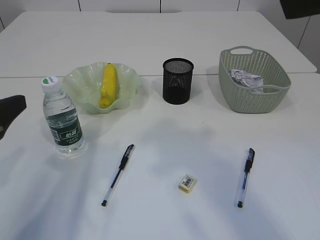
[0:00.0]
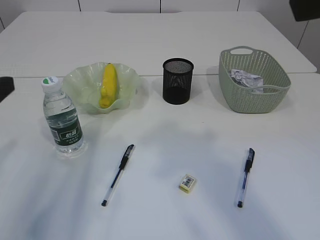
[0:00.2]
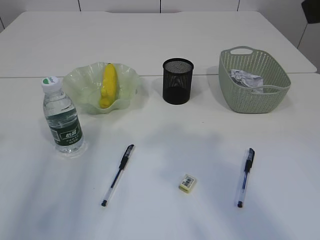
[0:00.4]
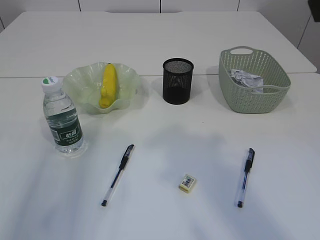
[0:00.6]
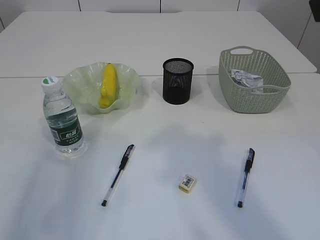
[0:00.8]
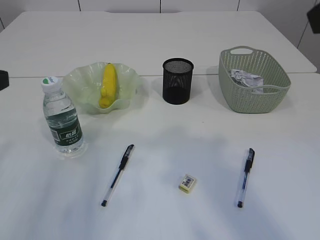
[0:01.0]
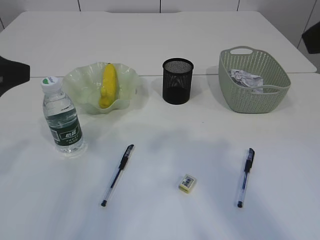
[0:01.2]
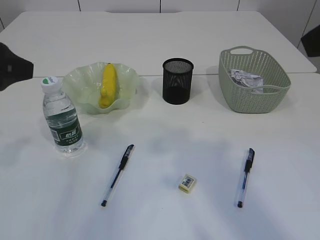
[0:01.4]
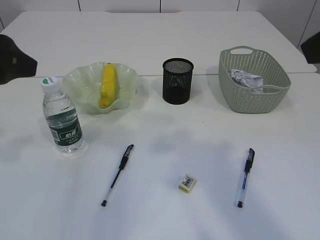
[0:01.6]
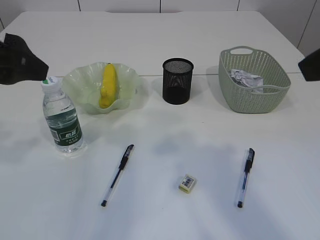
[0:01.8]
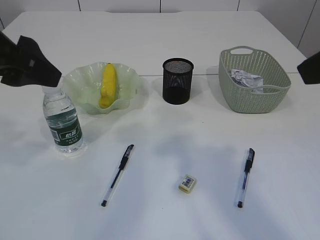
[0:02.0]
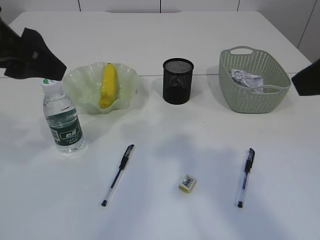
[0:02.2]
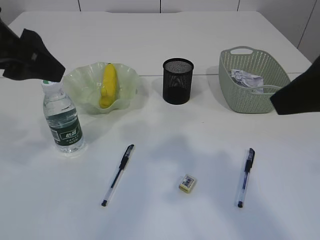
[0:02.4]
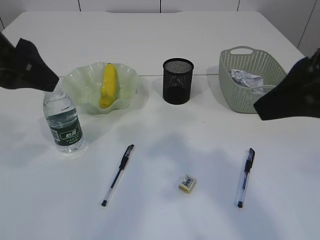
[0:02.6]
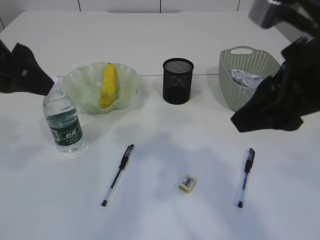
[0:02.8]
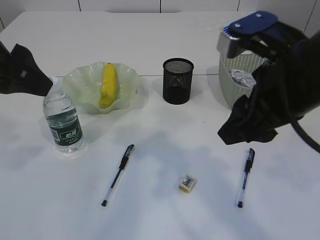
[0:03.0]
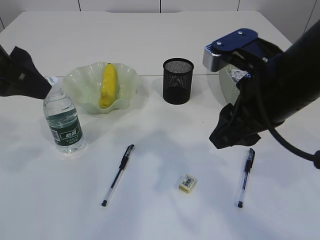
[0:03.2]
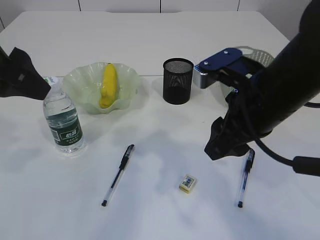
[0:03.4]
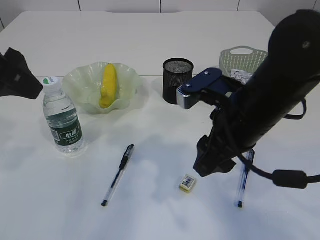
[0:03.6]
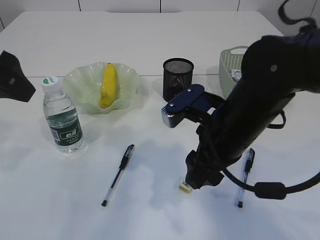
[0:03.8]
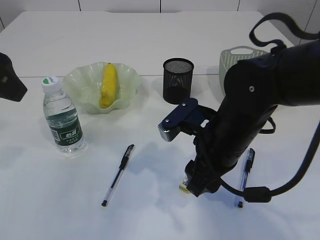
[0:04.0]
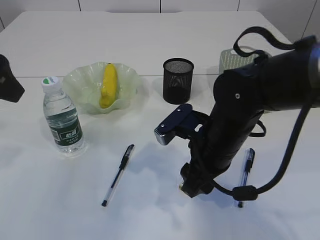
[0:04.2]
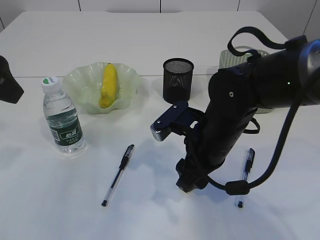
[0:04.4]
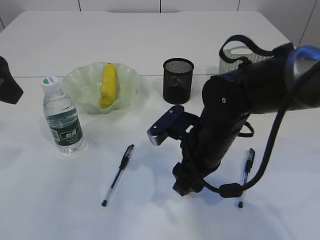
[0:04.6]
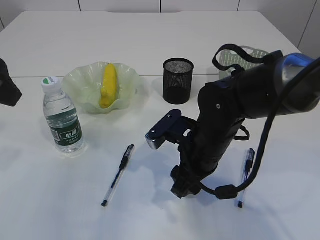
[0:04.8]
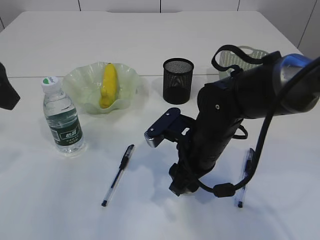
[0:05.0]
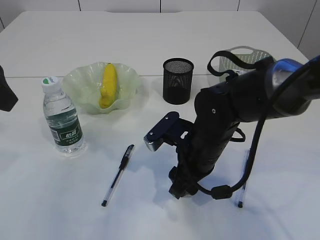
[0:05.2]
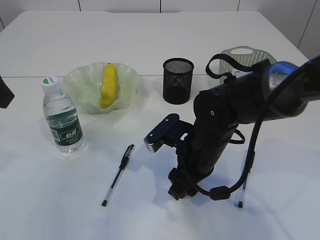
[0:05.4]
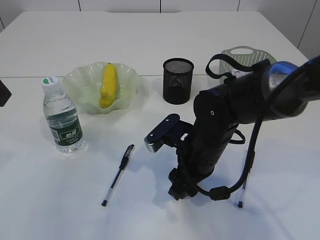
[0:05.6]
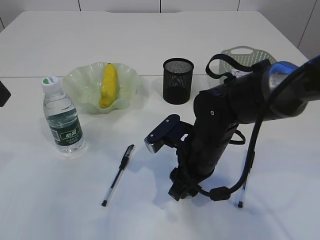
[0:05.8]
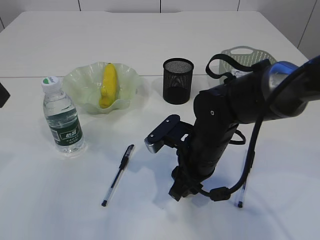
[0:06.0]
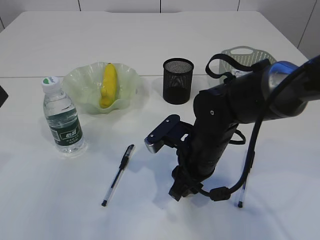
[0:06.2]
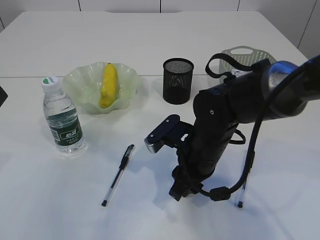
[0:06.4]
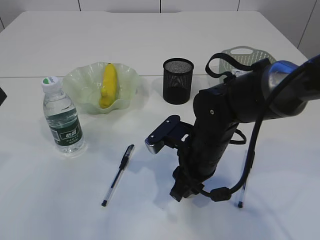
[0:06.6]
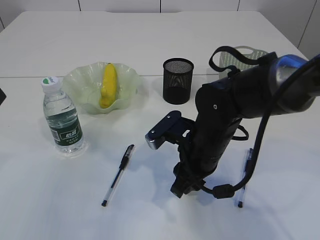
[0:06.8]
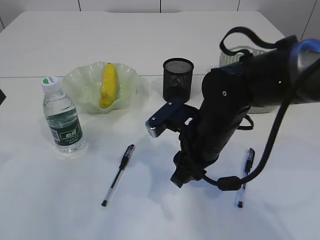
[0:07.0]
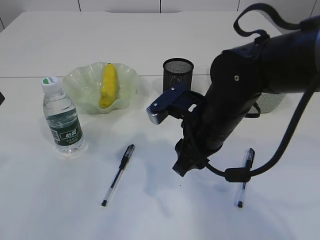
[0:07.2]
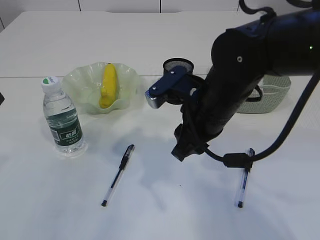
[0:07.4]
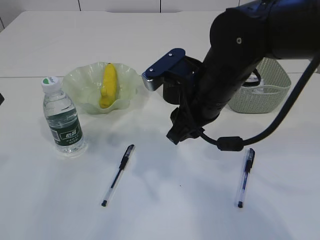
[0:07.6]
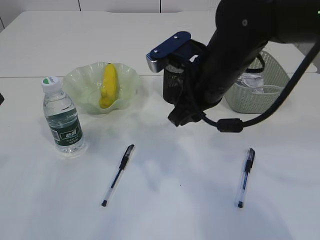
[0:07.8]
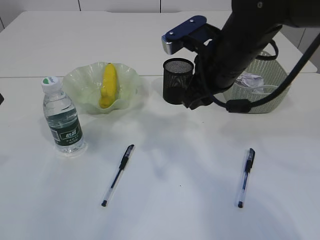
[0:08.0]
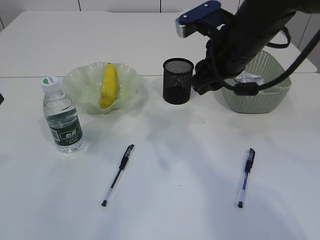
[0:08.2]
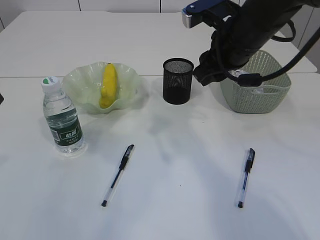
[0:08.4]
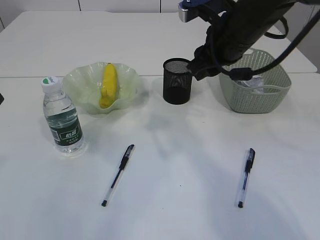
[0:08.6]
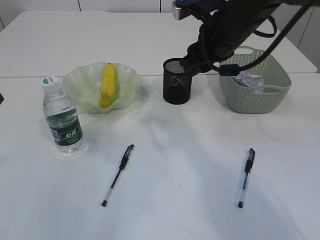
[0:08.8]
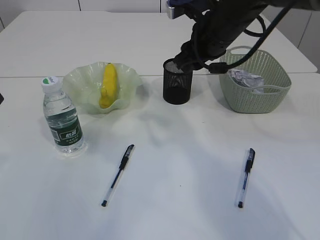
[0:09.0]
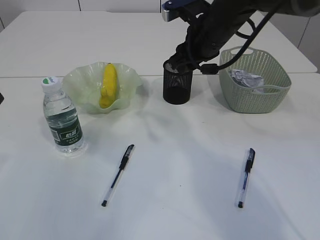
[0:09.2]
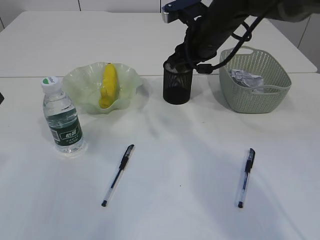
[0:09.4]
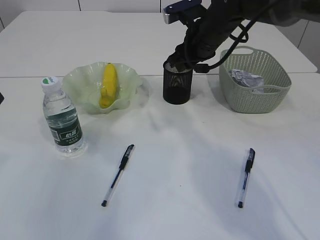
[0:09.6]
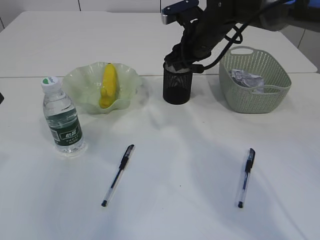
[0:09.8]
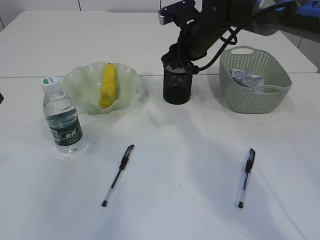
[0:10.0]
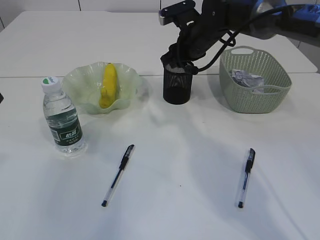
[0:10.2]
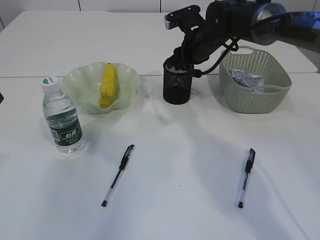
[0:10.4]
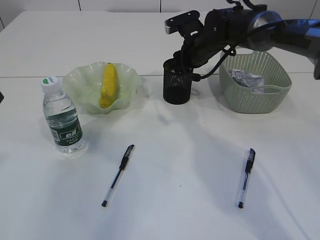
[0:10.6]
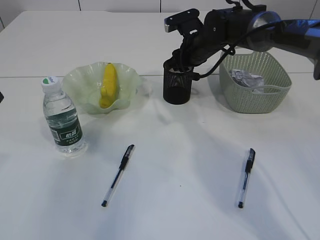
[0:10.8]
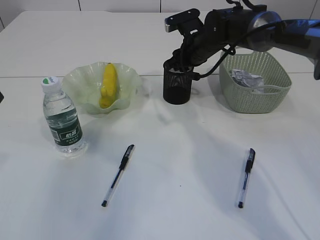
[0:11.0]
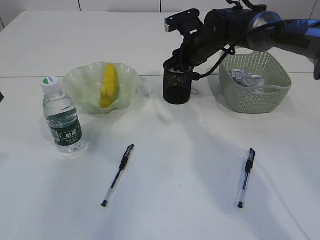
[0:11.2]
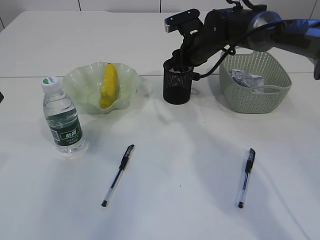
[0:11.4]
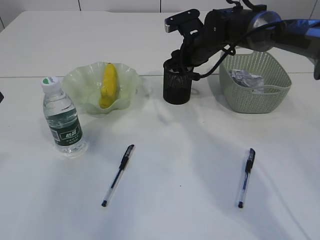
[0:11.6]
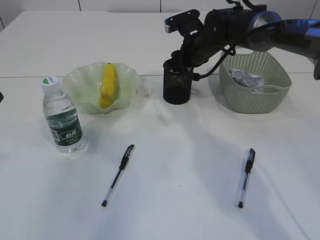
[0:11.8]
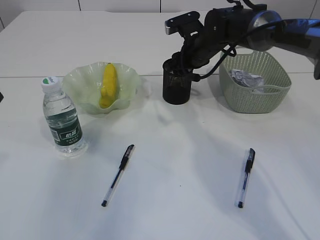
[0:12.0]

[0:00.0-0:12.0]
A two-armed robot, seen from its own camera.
Step, 0:00.0 to 0:07.0: Pick up the eraser.
0:00.0 to 0:01.6: The left gripper is displaced upward by about 10 cm.
0:01.6 to 0:03.0: The right gripper travels downward, to the left and forward by some 15 cm.
0:03.0 to 0:04.4: The right gripper goes roughly 15 cm downward, to the left and forward.
0:04.4 to 0:06.0: The grippers make only small movements.
0:06.0 to 0:07.6: The right gripper is displaced upward by about 10 cm.
0:07.6 to 0:09.0: The right gripper is displaced forward by about 10 cm.
0:09.0 to 0:10.4: The right gripper shifts about 10 cm forward and downward.
0:10.4 to 0:12.0: The grippers move only a little.

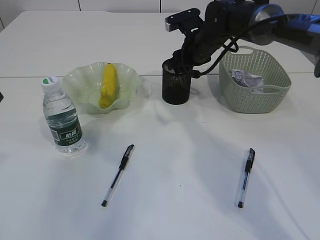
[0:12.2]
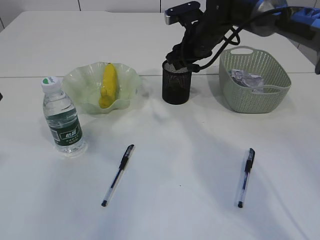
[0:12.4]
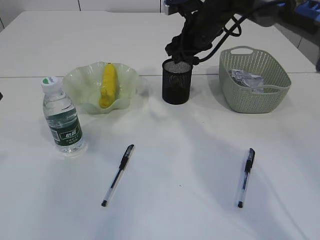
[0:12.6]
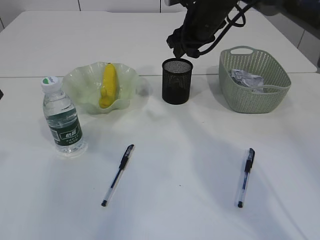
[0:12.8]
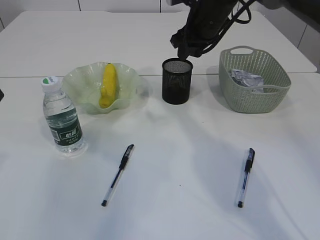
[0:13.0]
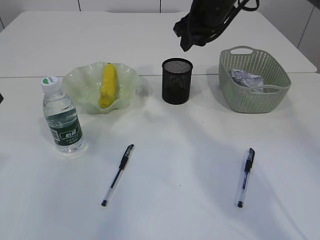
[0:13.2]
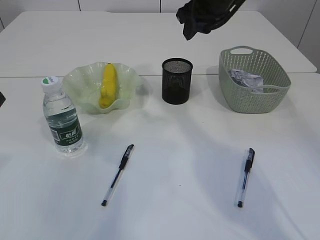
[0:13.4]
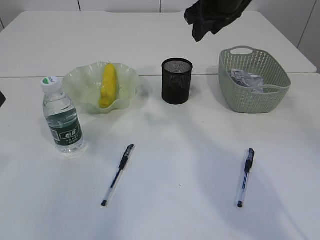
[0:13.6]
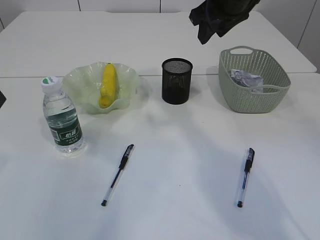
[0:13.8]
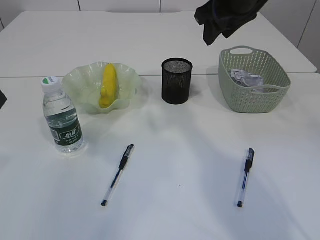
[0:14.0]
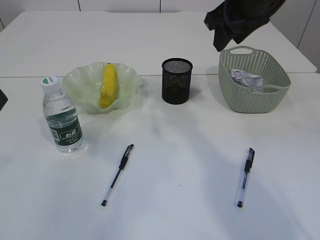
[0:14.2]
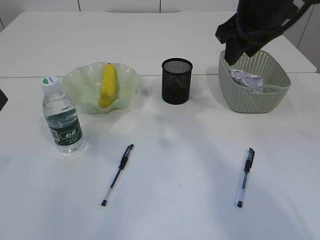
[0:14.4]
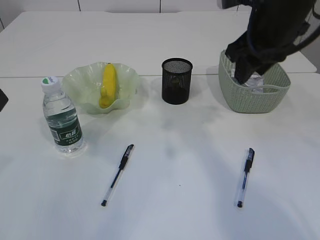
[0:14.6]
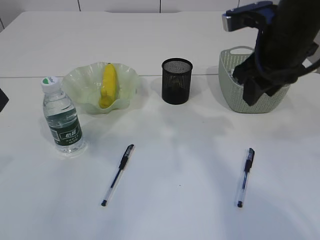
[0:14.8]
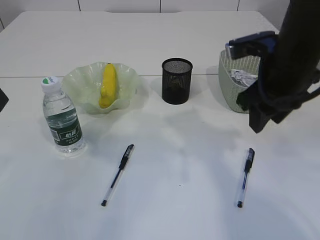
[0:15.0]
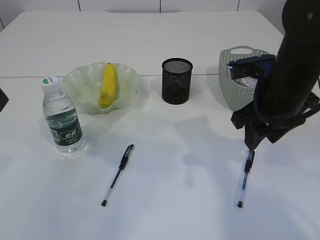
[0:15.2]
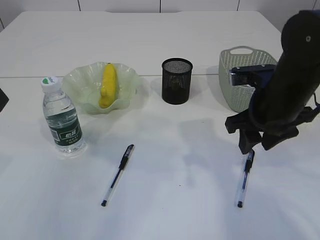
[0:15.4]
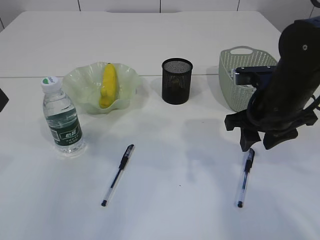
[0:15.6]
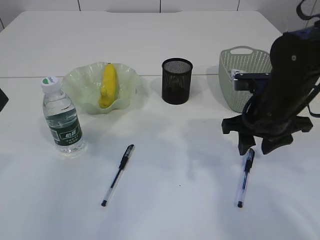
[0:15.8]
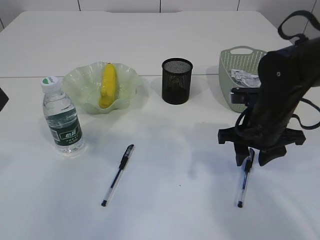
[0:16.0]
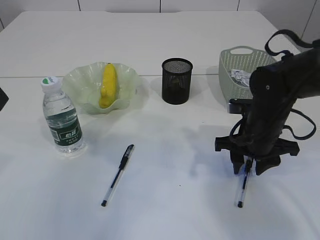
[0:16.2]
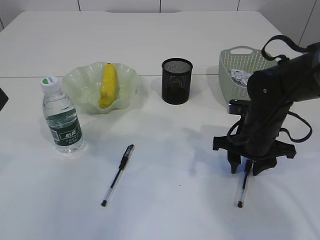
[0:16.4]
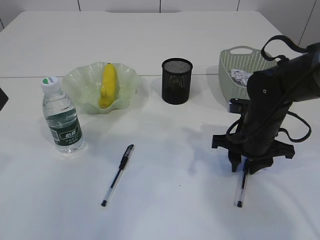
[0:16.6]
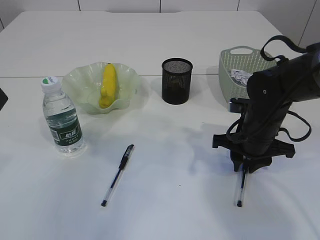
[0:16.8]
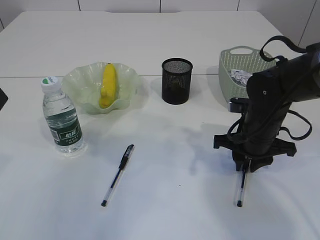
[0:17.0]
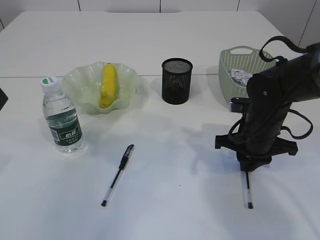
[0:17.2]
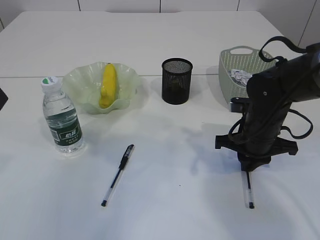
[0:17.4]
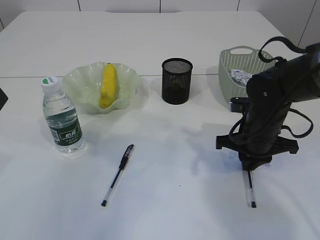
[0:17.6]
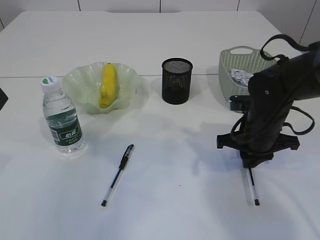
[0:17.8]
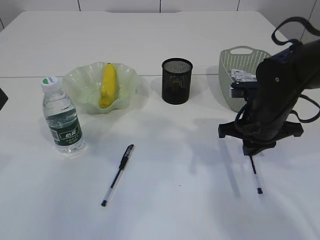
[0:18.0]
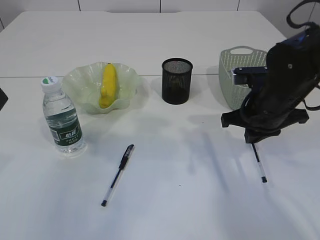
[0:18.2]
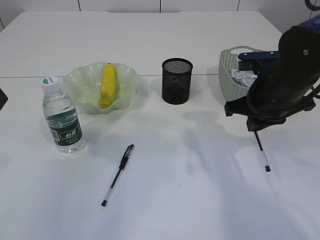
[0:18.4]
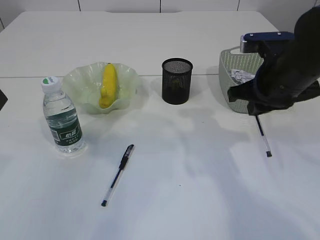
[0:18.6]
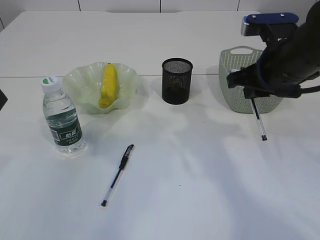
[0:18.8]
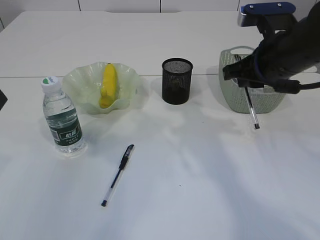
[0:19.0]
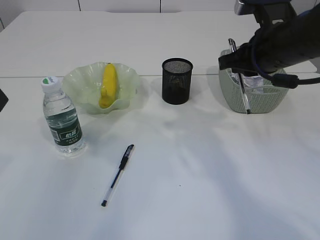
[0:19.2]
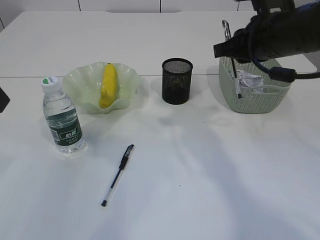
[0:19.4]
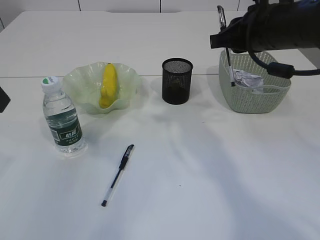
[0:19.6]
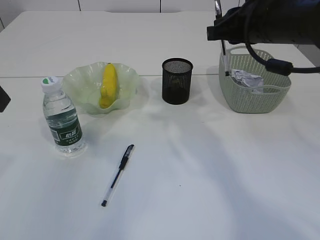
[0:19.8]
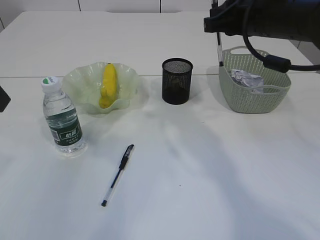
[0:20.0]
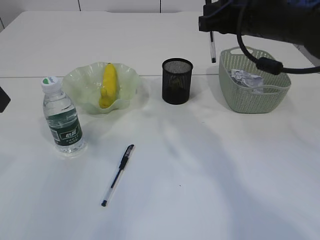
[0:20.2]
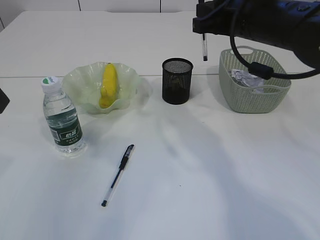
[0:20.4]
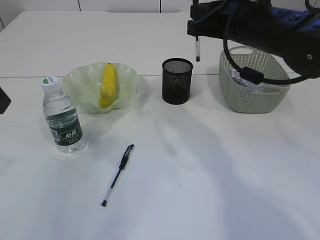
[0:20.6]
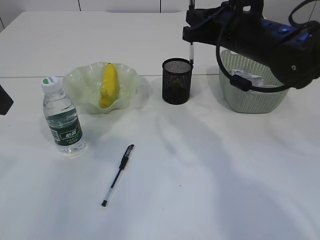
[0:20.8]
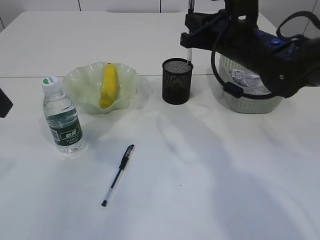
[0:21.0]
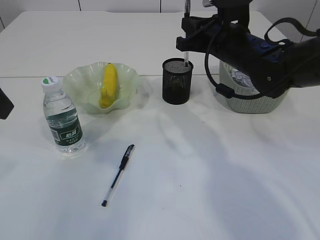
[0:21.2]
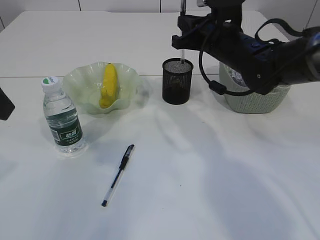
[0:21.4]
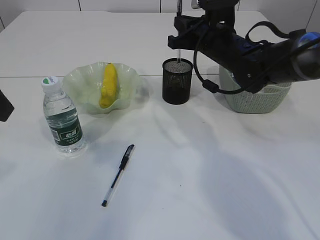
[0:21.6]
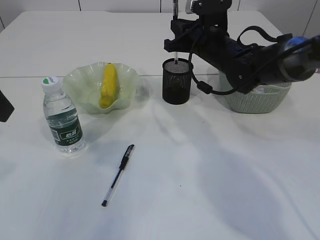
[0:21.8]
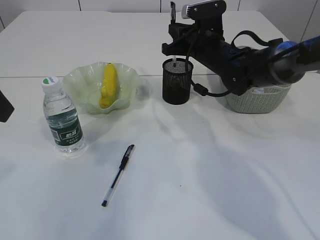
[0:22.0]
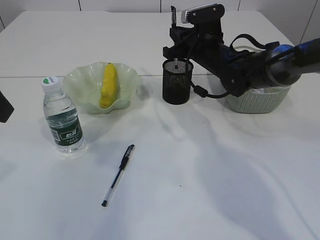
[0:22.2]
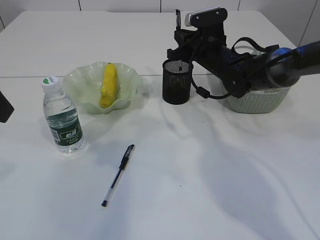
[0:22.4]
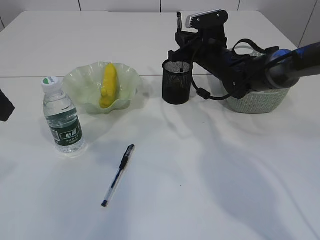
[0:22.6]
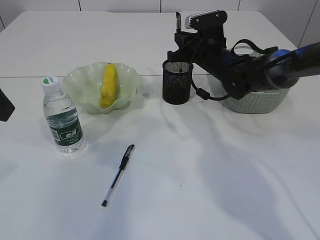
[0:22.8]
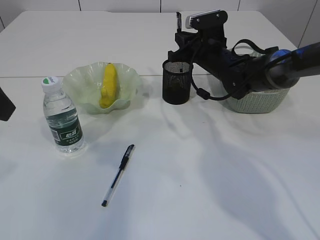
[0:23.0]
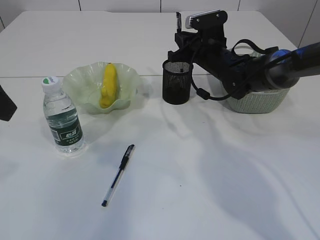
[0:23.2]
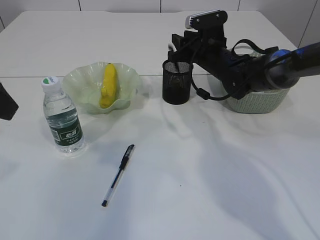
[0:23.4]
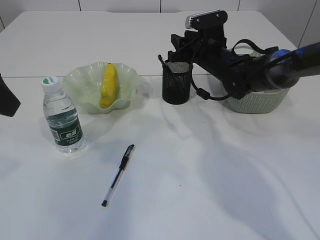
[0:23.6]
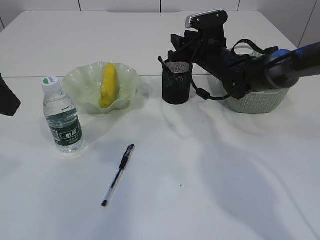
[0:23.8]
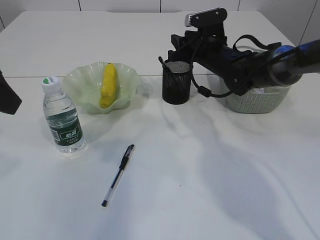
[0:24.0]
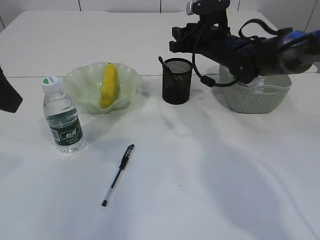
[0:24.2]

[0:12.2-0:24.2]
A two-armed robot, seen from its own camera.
Step, 0:12.8 to 0:18.4: Pick up the pen with right arm.
0:12.2 to 0:13.8: The right gripper is displaced upward and backward by approximately 15 cm.
0:13.8 to 0:15.2: The right gripper moves backward and downward, approximately 15 cm.
0:15.2 to 0:16.6: The right gripper is displaced downward by about 10 cm.
0:16.6 to 0:18.2: The right gripper is displaced upward by about 5 cm, and closes up.
0:18.2 to 0:19.8: The right gripper goes some 10 cm upward.
0:19.8 to 0:21.2: The right gripper shifts approximately 10 cm downward and forward.
0:21.2 to 0:22.6: The right gripper travels forward and downward by roughly 10 cm.
0:22.6 to 0:24.2: The right gripper opens up.
